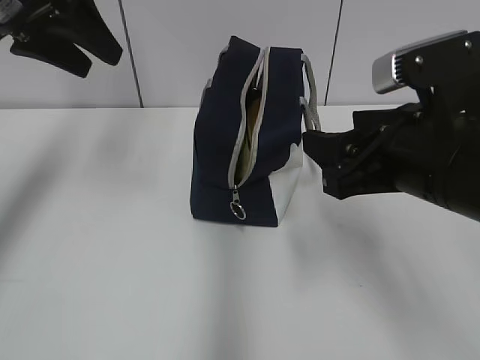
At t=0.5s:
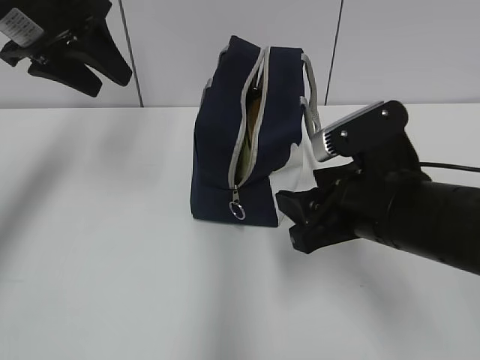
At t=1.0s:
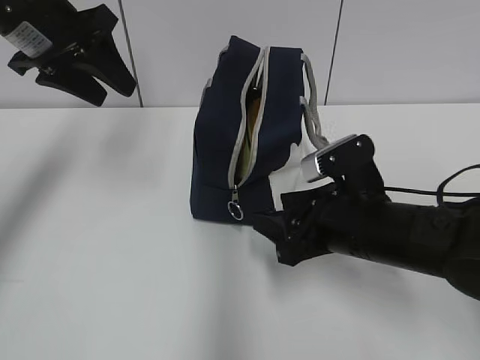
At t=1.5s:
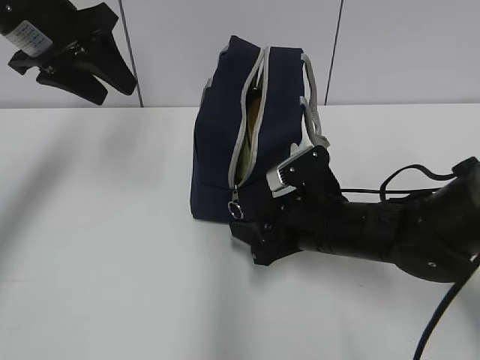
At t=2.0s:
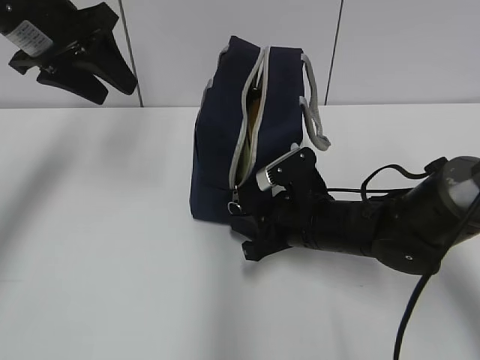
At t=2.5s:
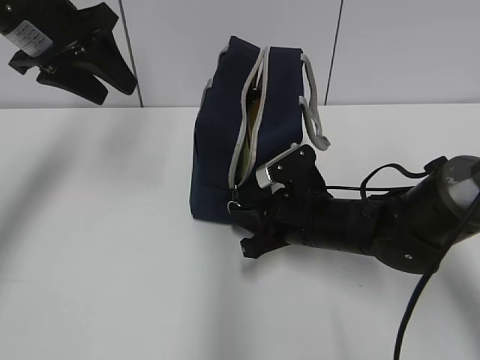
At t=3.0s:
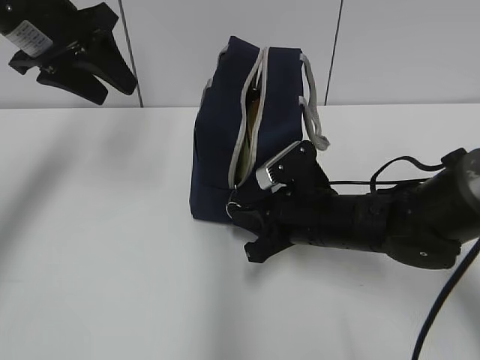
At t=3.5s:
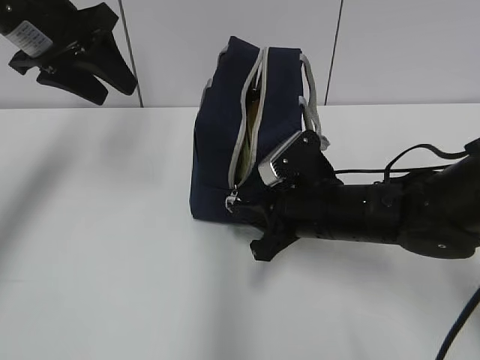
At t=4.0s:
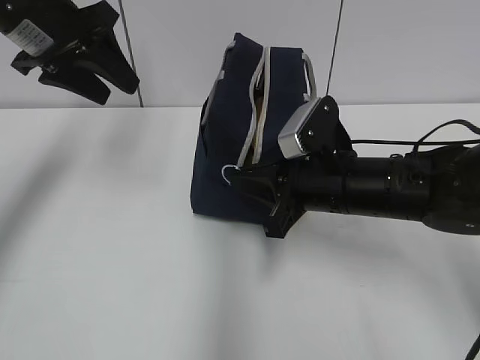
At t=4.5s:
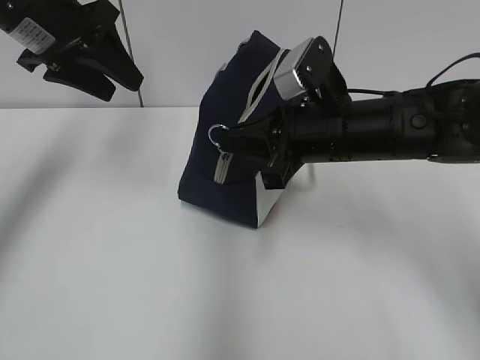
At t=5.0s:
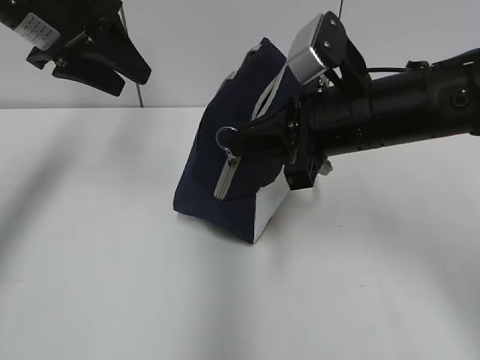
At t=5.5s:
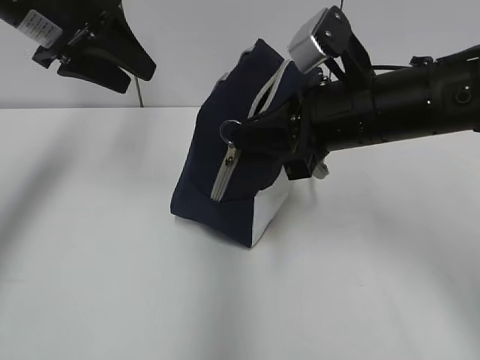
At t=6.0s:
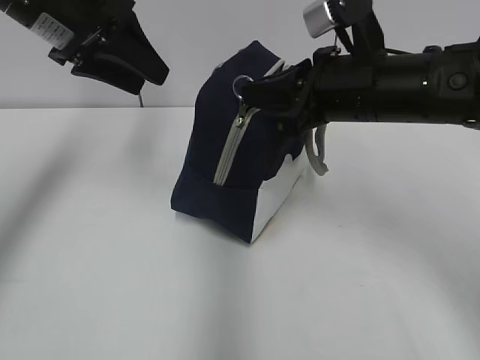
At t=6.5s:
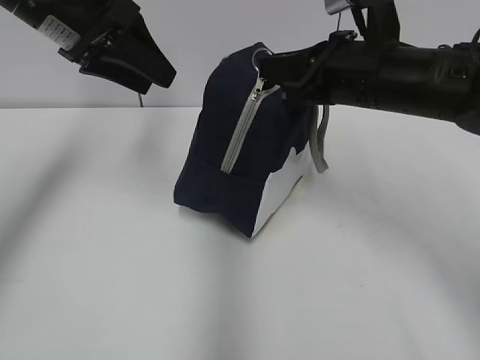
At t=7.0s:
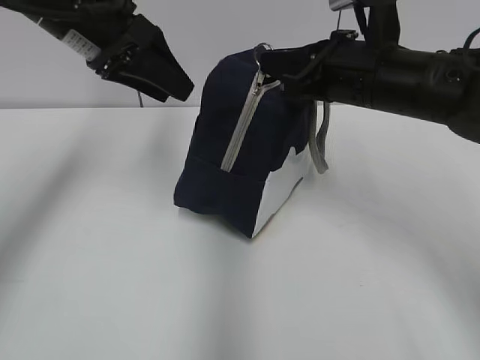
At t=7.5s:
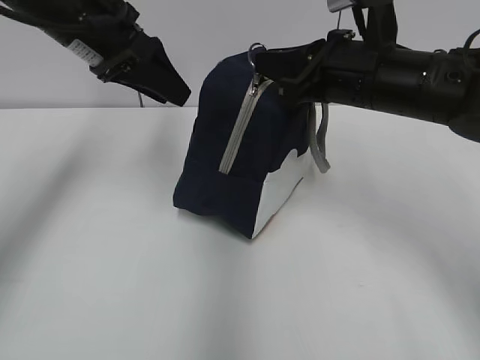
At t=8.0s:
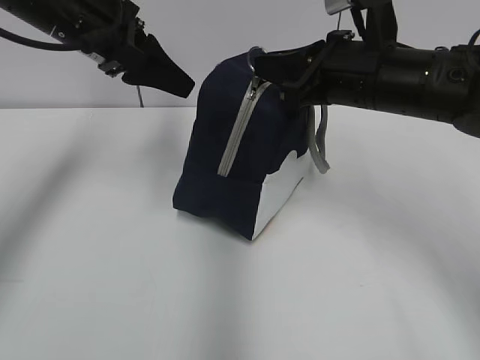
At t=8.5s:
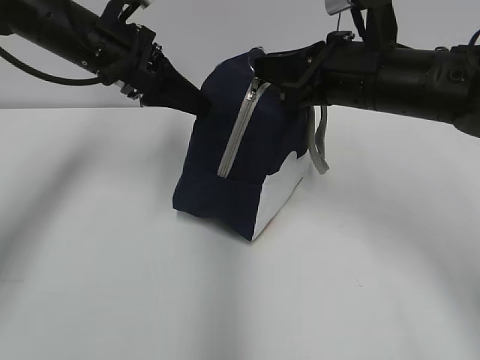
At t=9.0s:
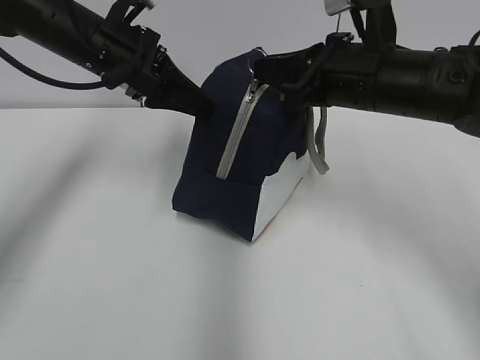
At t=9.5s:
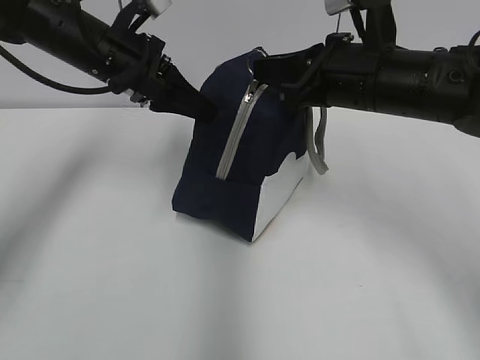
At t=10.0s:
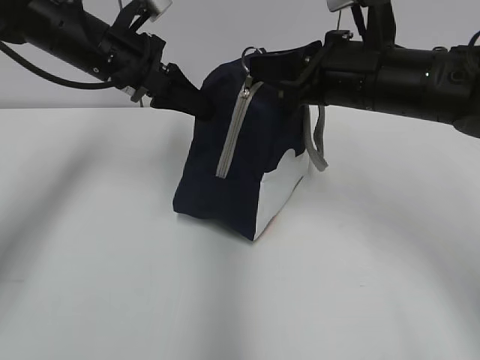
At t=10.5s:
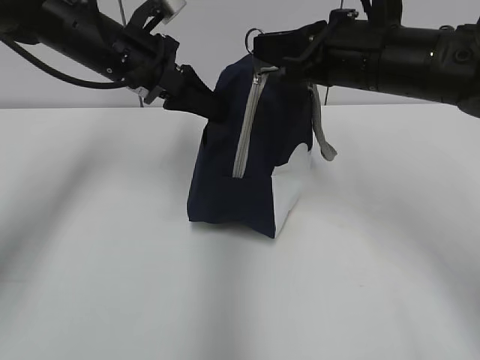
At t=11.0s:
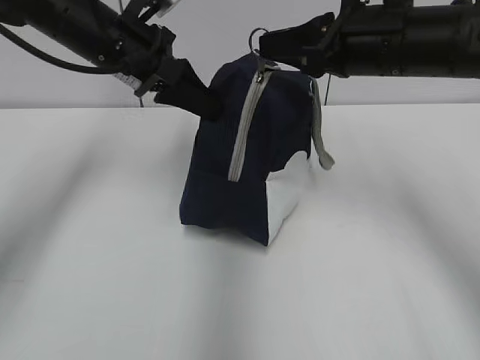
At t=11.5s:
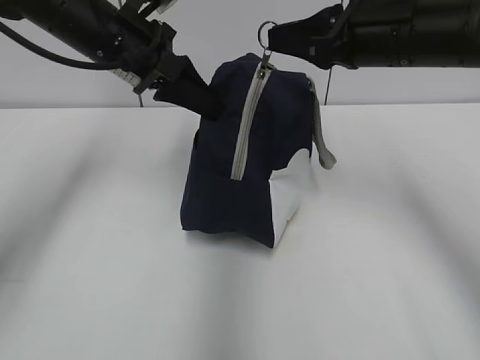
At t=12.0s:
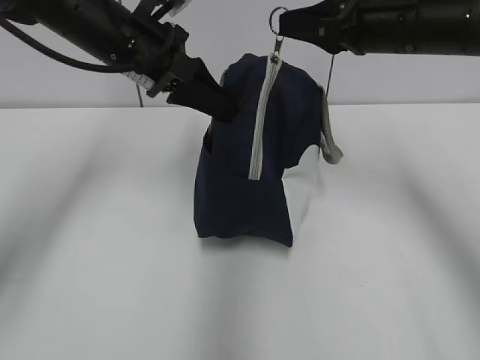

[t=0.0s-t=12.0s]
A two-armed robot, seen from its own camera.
t=0.0s to t=2.0s: The right gripper shifts about 20 cm downward and forward, and closes up. The left gripper shifts by about 5 cm.
t=2.0s to t=4.0s: The right gripper goes some 5 cm upward, and closes.
t=4.0s to t=6.0s: The right gripper moves upward, approximately 10 cm.
t=8.0s to t=10.0s: The left gripper ends up roughly 5 cm from where it was, and closes.
t=10.0s to t=12.0s: The right gripper shifts by roughly 5 cm.

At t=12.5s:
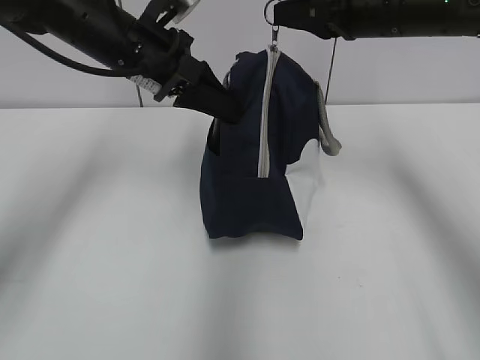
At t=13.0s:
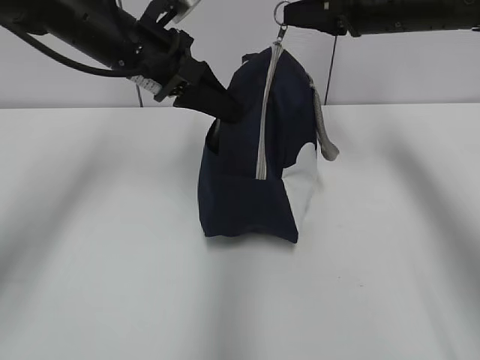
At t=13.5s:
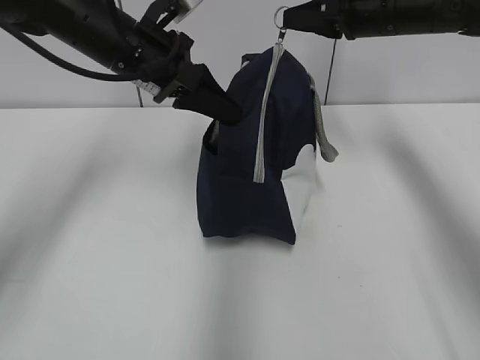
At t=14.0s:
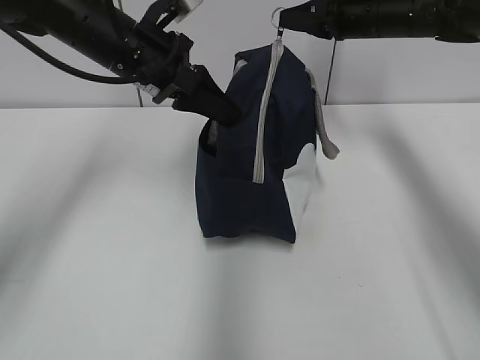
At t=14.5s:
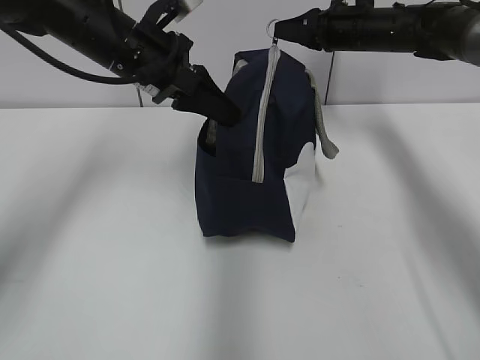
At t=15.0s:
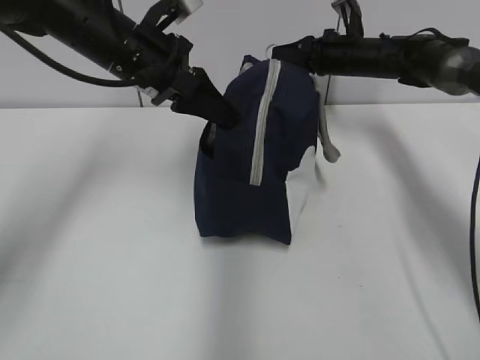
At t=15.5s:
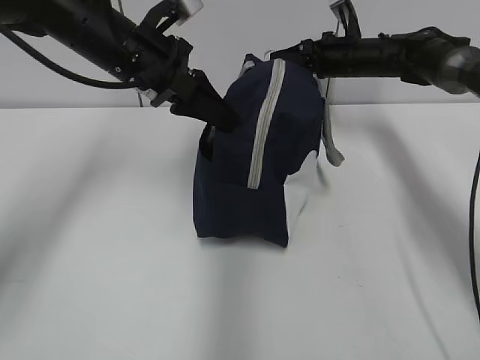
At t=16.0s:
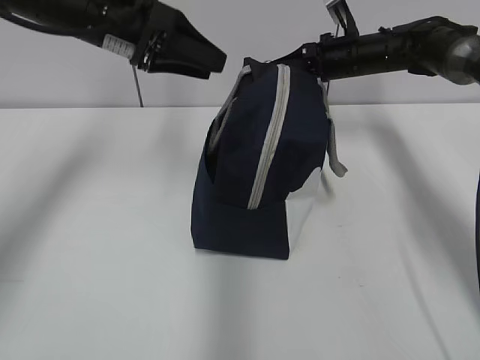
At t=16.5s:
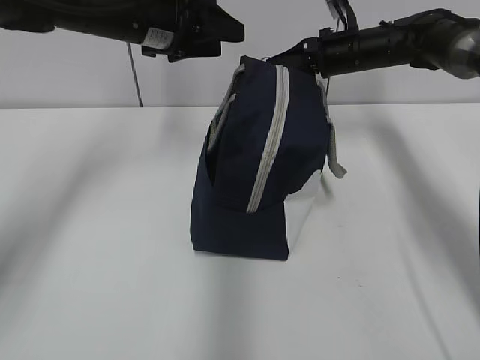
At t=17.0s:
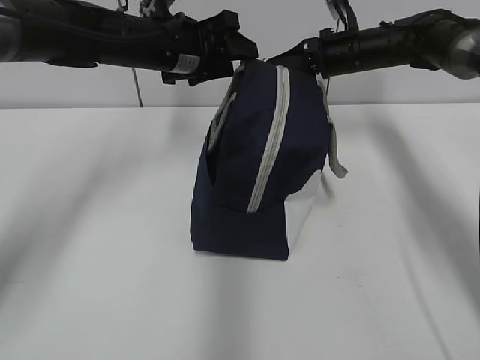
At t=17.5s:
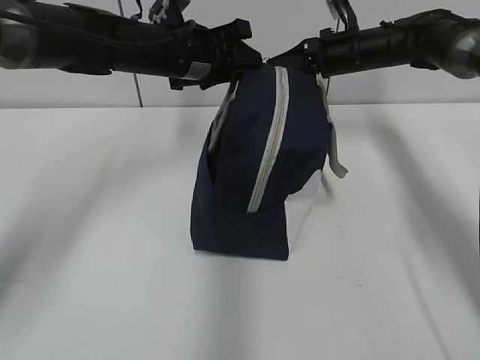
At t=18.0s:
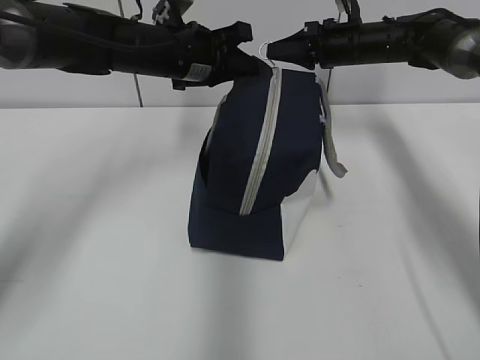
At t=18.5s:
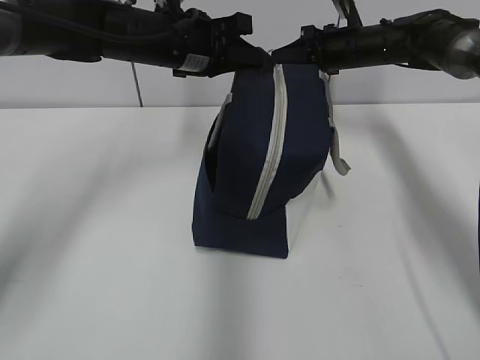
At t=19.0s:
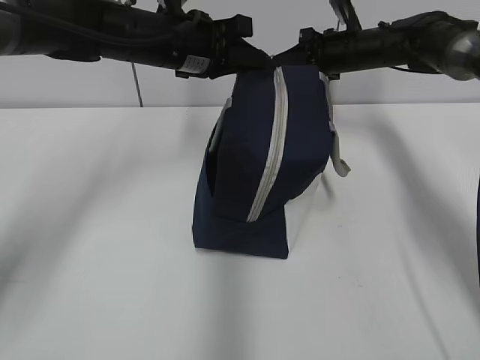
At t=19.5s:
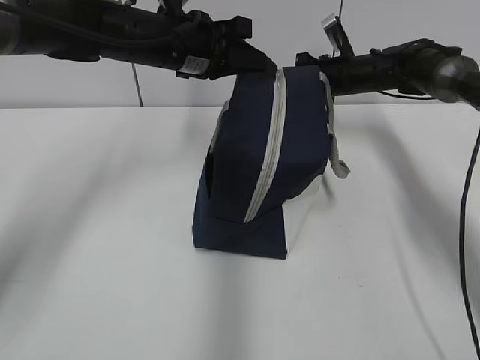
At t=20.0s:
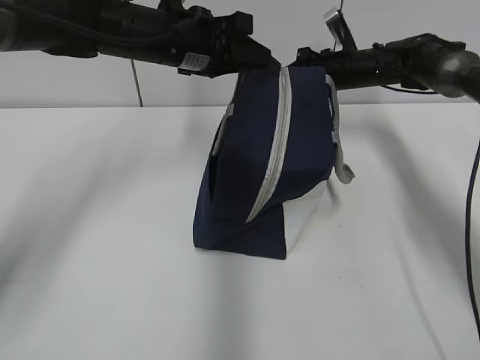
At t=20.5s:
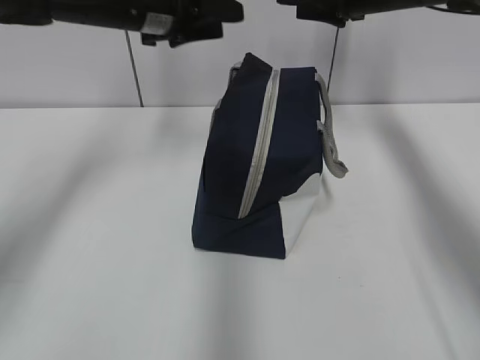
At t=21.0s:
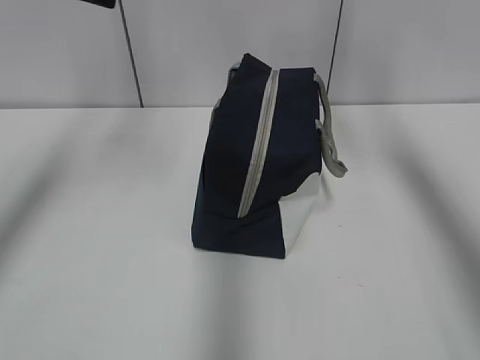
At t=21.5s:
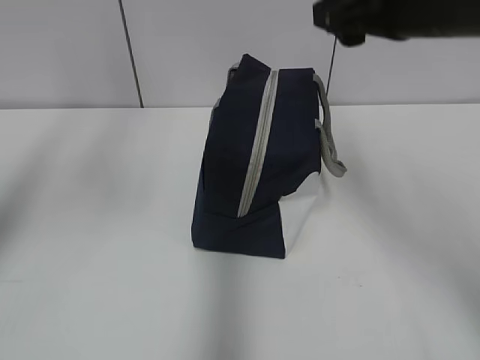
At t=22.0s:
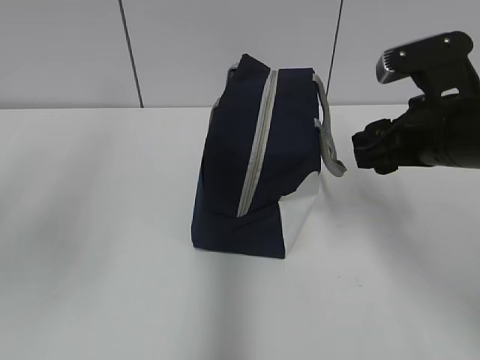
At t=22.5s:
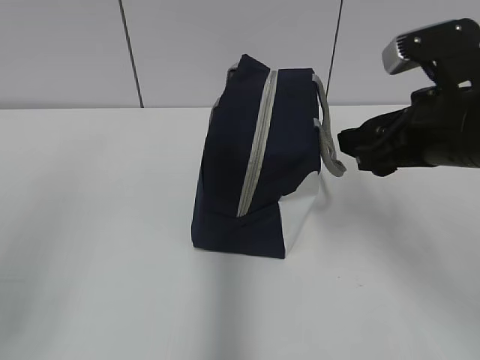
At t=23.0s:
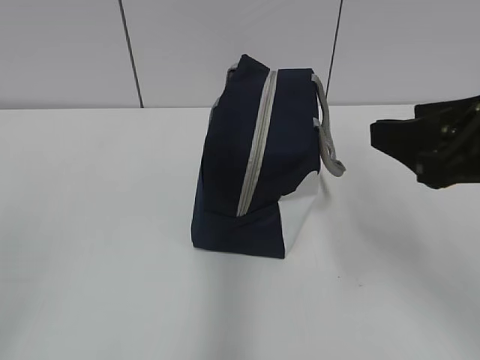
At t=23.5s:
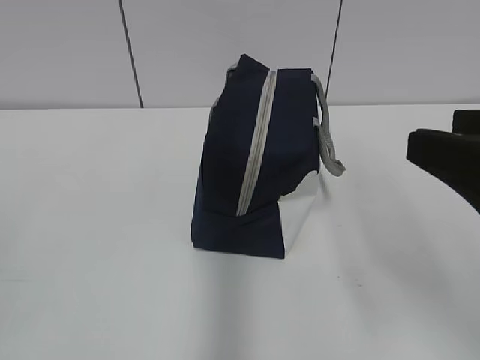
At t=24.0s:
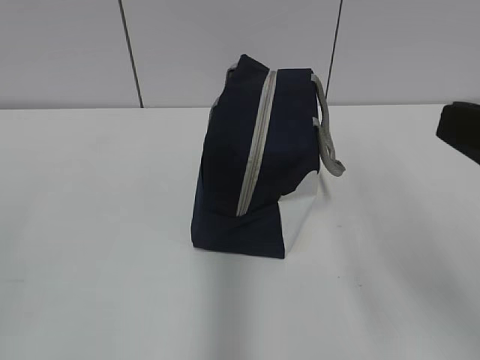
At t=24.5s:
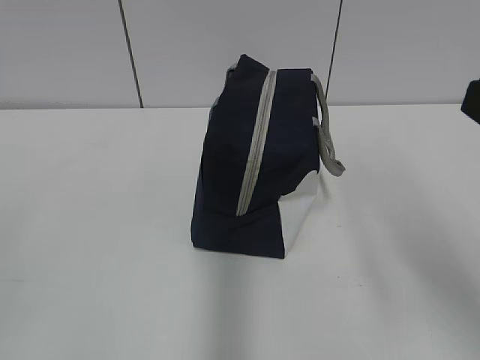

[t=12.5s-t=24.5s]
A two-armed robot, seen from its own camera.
Step, t=16.0s to t=20.0s: Pull the zipper with your right hand.
t=12.5s to t=14.5s: The right gripper is displaced forward and downward by approximately 15 cm.
t=14.5s to t=16.5s: The left gripper opens up.
t=16.5s to t=18.5s: The left gripper closes its fingers.
t=18.5s to t=20.5s: The left gripper moves approximately 5 cm, and opens up. The right gripper travels upward by roughly 10 cm, and opens its fingers.
t=20.5s to t=22.5s: The right gripper heads backward, covering approximately 25 cm. Meanwhile the left gripper moves backward and to the left, about 35 cm.
t=22.5s to t=24.5s: The left gripper shifts some 10 cm backward and downward, while the right gripper moves backward and upward, roughly 15 cm.

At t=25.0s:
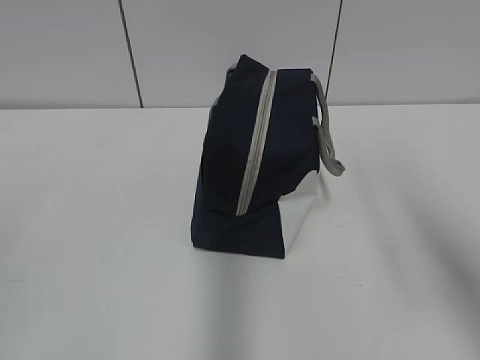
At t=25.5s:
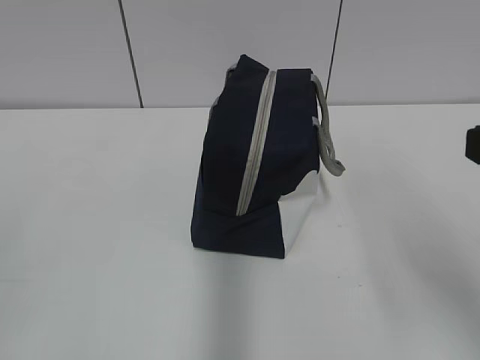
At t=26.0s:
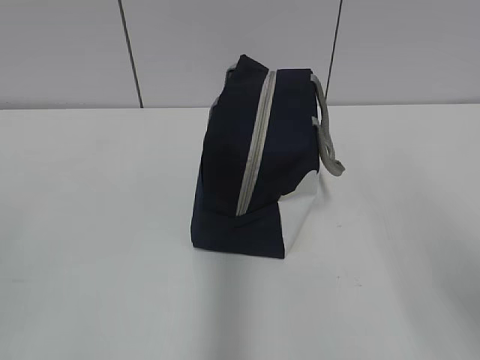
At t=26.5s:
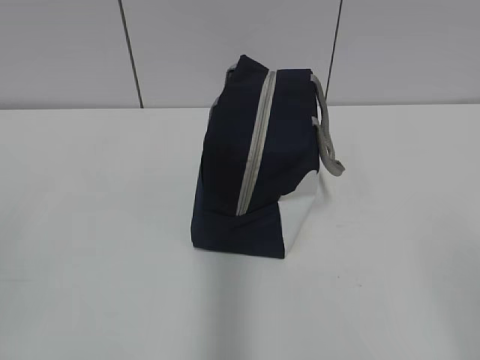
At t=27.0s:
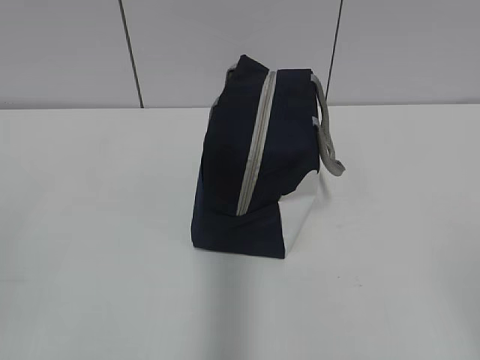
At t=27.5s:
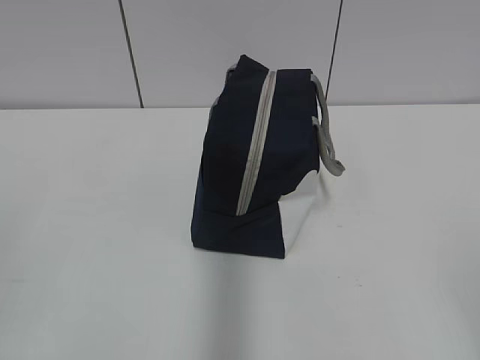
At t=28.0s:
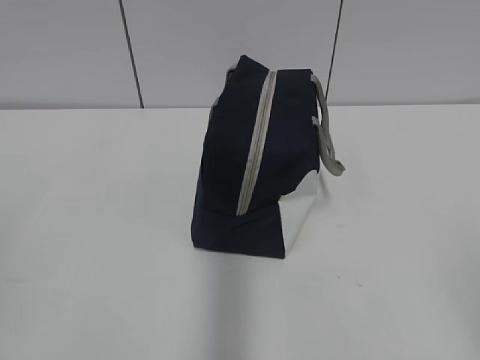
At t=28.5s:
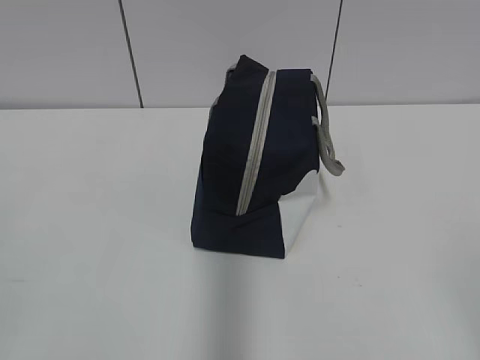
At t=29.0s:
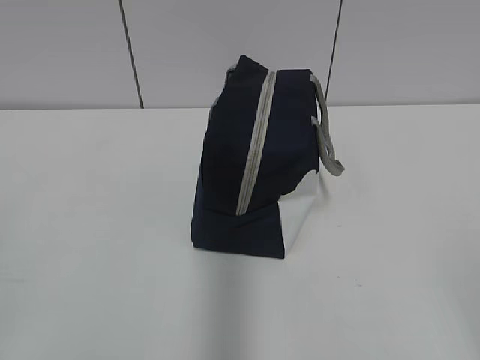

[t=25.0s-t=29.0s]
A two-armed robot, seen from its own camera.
t=25.0s to t=27.0s: The right gripper heads backward, covering some 15 cm.
